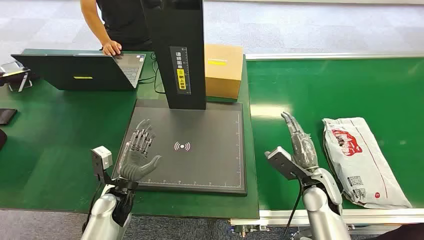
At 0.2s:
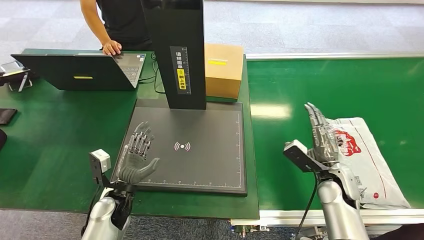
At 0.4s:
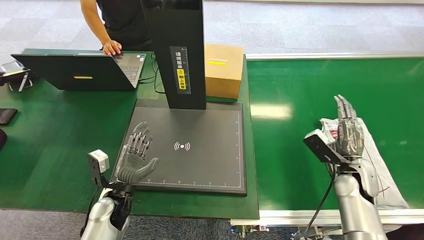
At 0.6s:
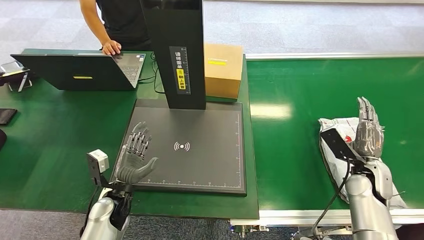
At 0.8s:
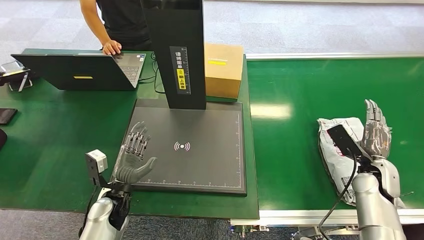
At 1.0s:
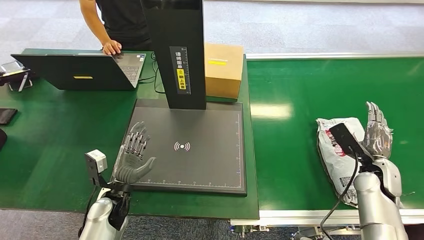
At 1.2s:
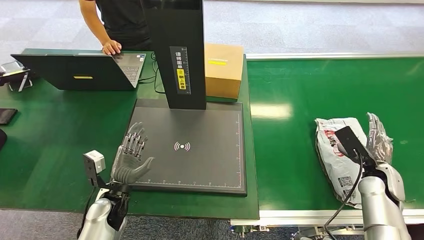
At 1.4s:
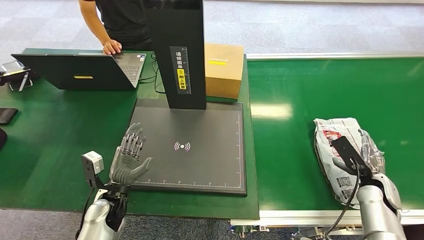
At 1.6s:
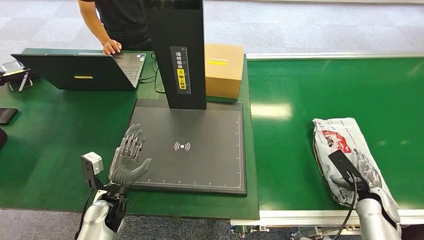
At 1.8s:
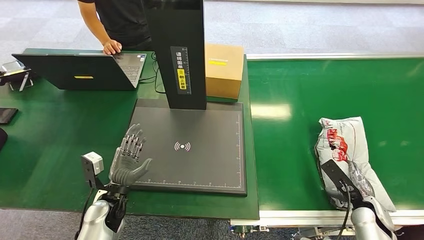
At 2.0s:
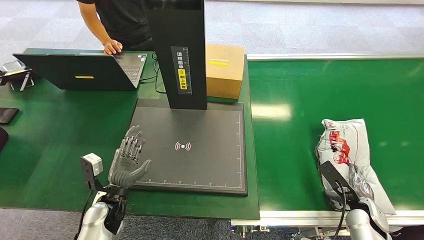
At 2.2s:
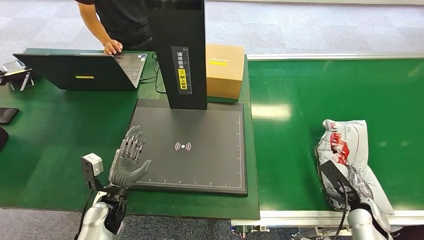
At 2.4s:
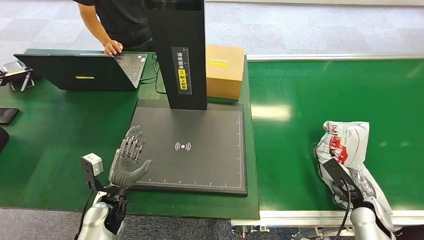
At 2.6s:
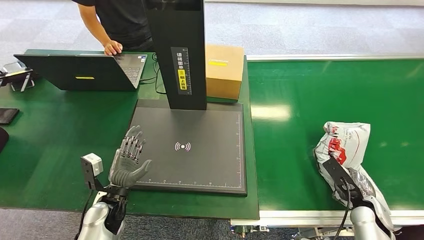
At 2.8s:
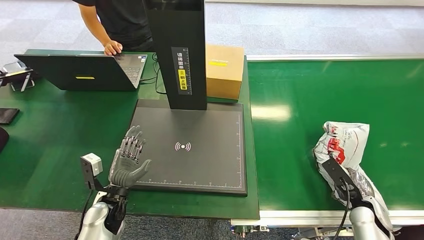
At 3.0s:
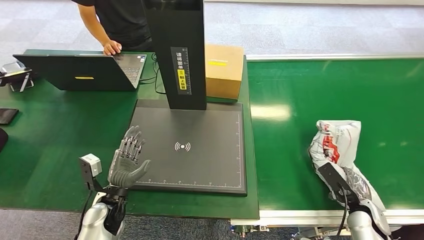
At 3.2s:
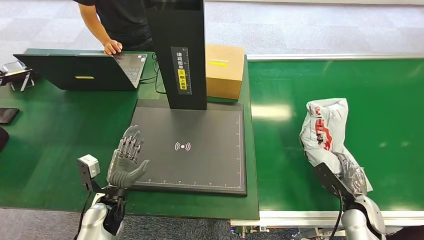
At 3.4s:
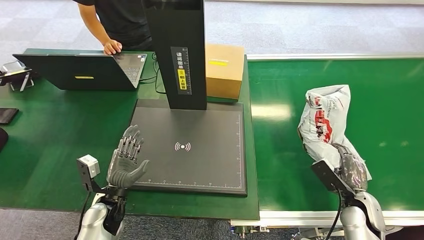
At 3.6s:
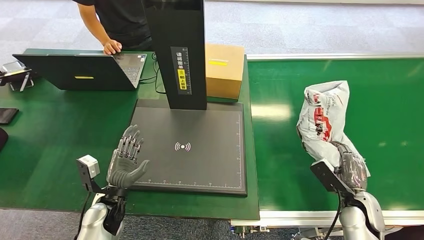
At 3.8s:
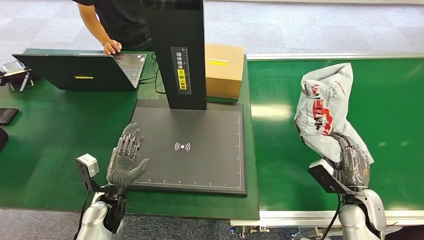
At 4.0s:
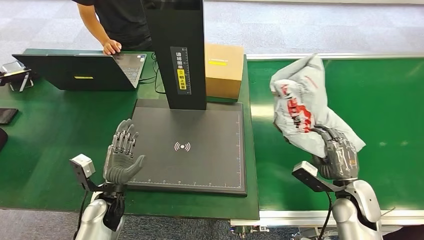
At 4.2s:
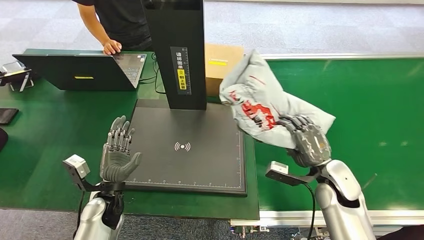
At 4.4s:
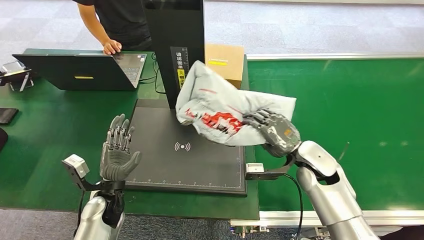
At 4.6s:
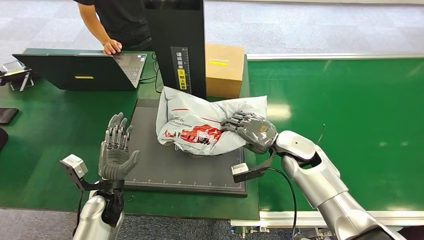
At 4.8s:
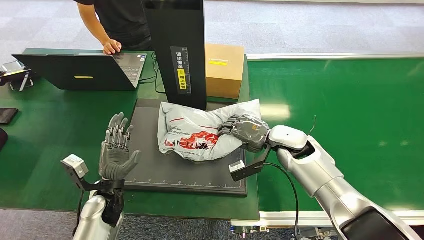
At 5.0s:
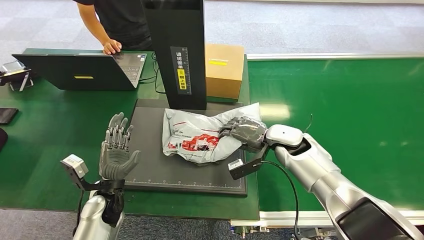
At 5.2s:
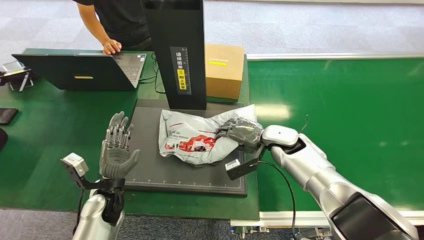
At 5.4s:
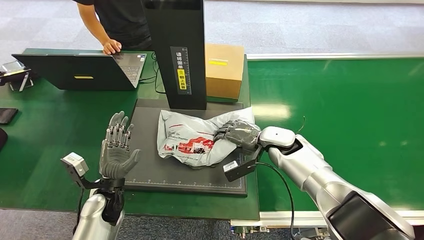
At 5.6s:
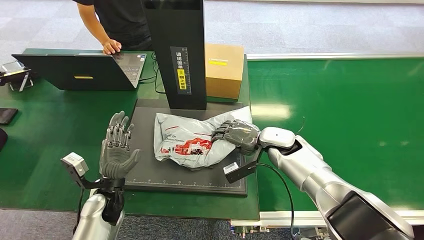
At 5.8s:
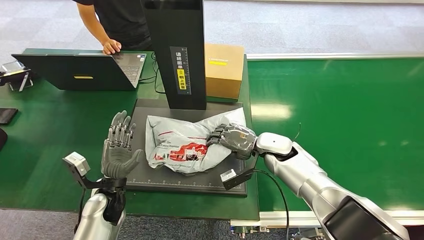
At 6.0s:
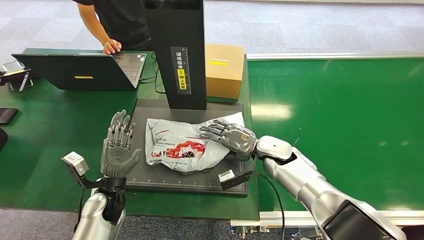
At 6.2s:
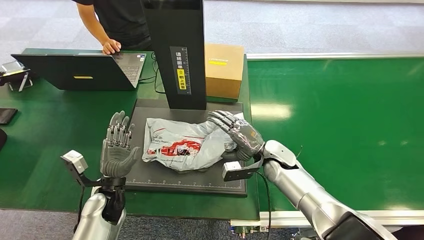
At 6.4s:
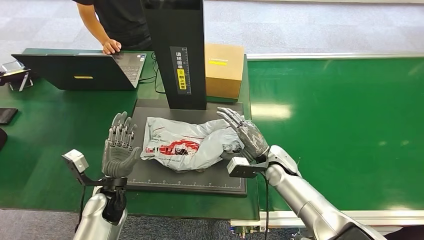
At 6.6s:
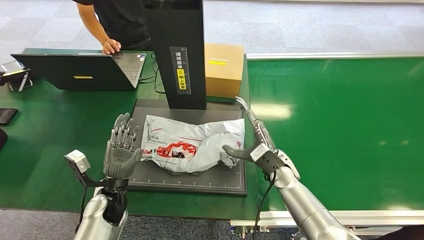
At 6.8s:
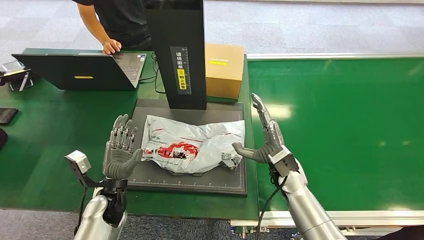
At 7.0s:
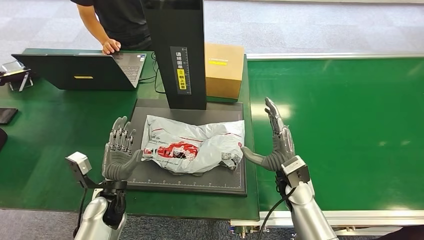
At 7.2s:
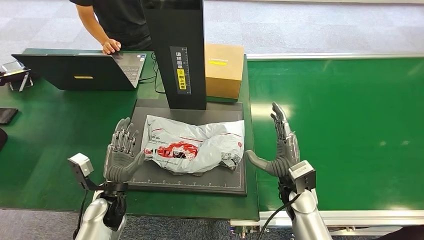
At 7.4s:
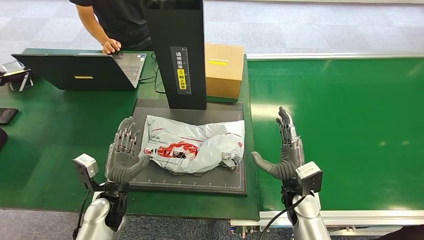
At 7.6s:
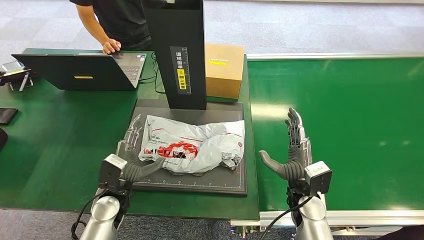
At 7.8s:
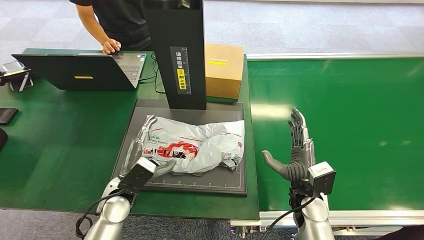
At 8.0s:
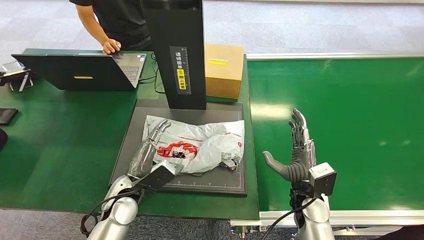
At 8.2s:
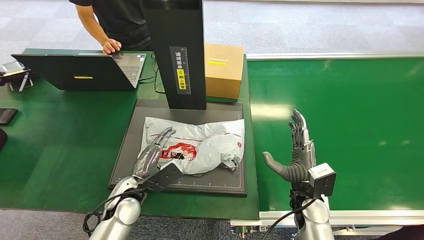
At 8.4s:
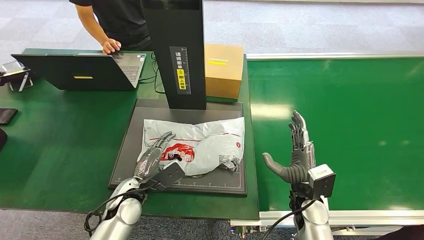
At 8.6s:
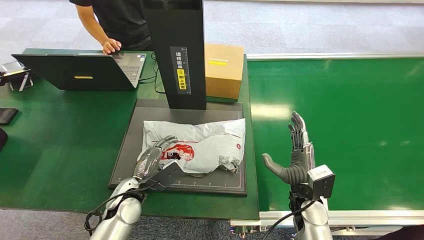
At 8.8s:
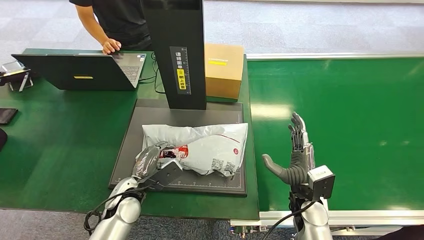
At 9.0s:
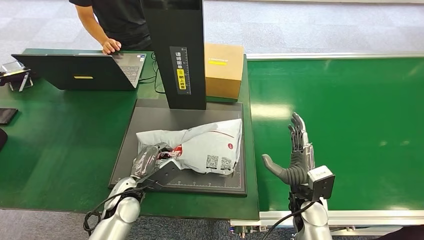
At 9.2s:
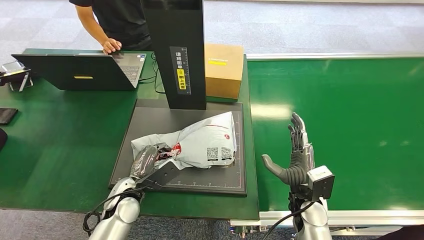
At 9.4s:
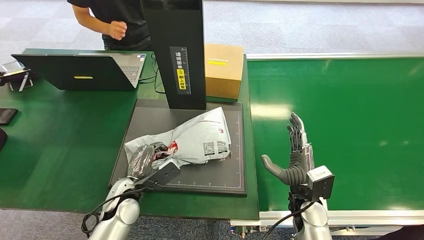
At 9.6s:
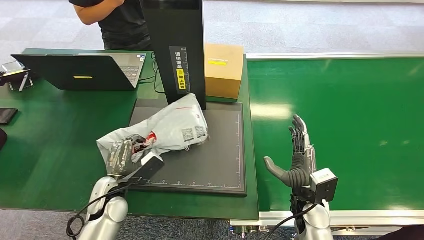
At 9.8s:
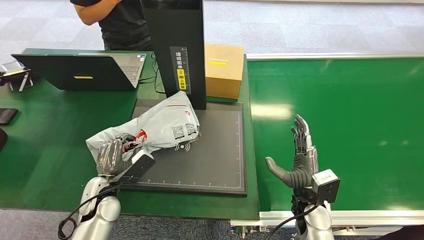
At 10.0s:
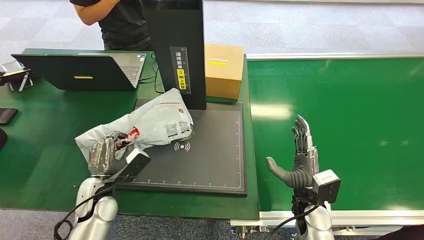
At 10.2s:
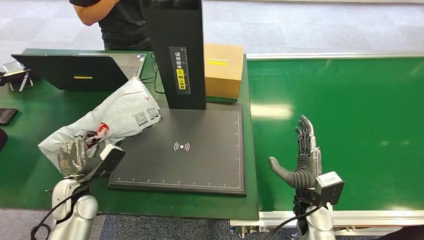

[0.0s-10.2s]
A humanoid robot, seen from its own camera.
Step, 0.0s to 3.8s: Pick up the package from the conveyor belt.
Step, 4.0s to 7.0s: Place the package onto the inbound machine.
Step, 7.2s to 10.2s: Pick up the package from the inbound machine.
1.4s to 3.0s: The right hand goes approximately 10 cm downward and backward.
4.4s to 5.8s: The right hand travels to the left and forward by roughly 10 cm.
5.8s to 7.2s: The right hand is displaced backward by some 10 cm.

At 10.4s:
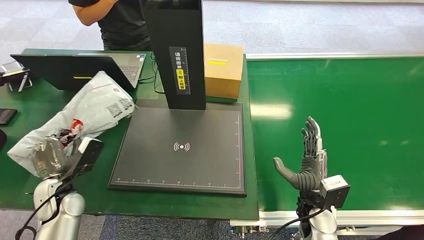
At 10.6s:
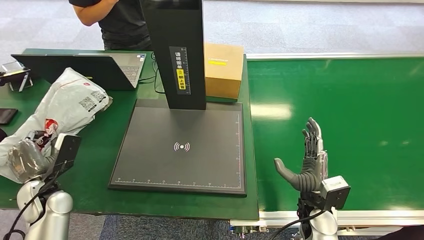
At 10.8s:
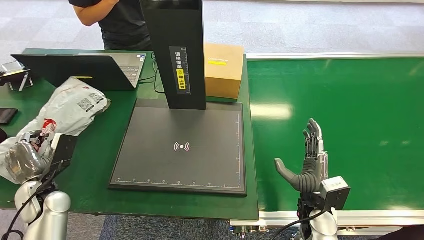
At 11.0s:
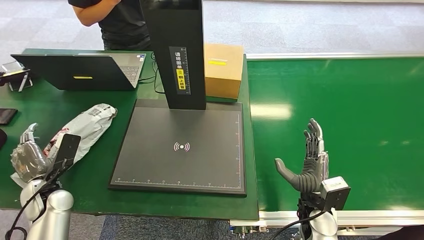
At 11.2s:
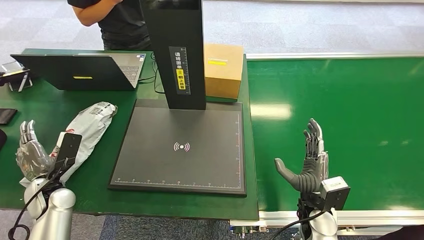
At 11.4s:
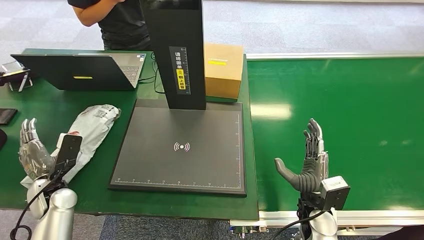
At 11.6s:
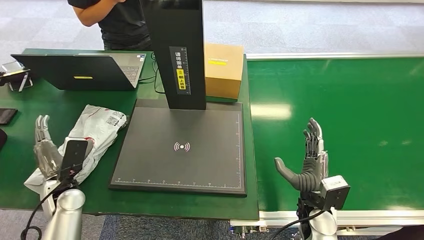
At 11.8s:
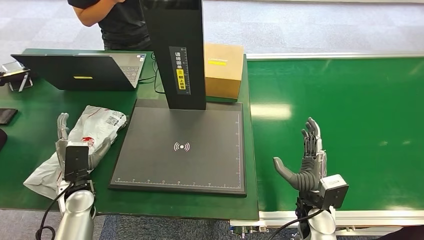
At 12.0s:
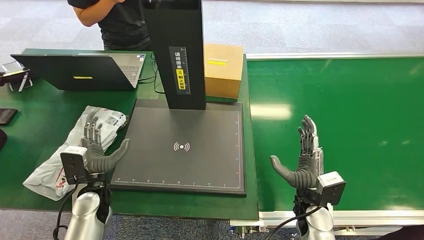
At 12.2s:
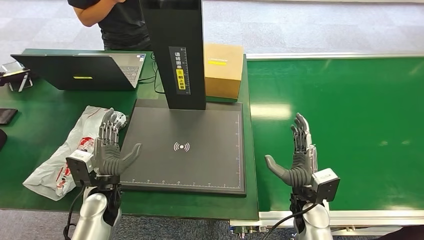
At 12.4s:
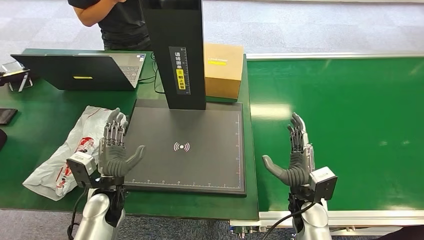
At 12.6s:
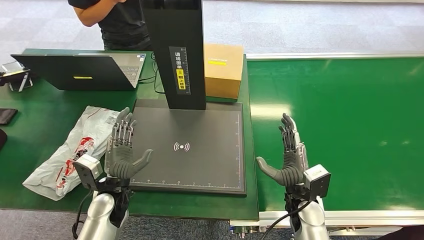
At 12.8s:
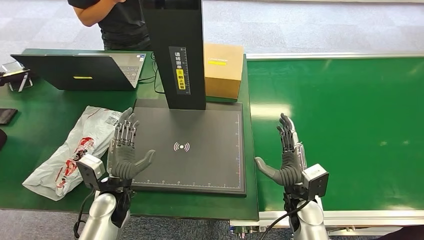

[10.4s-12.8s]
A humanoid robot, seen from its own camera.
Step, 10.4s to 12.8s: Place the package into the parcel locker.
10.4s to 11.6s: There are only small adjustments of the hands.
11.6s to 12.8s: The left hand heads to the right, covering approximately 15 cm.

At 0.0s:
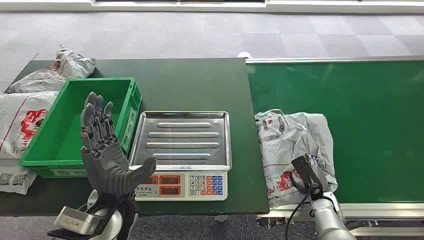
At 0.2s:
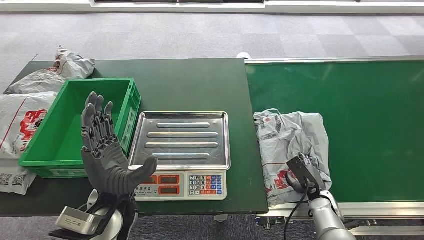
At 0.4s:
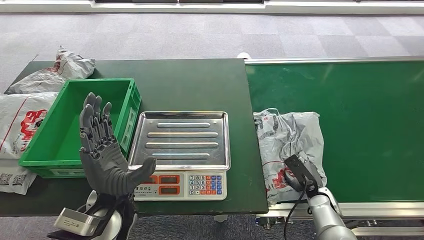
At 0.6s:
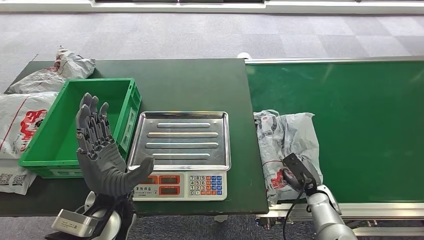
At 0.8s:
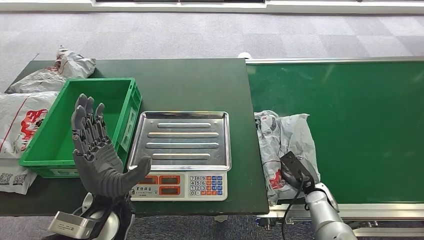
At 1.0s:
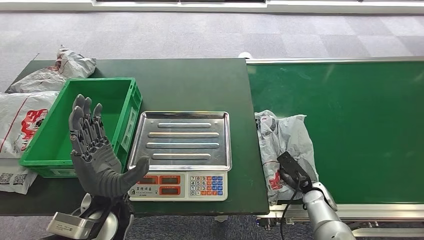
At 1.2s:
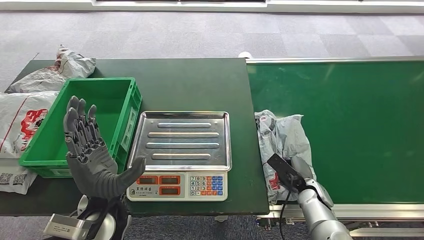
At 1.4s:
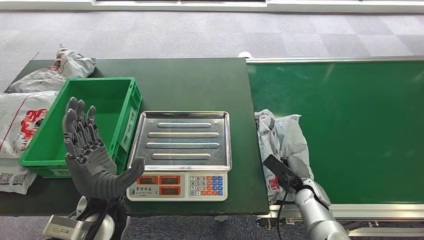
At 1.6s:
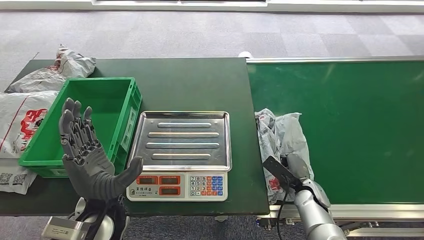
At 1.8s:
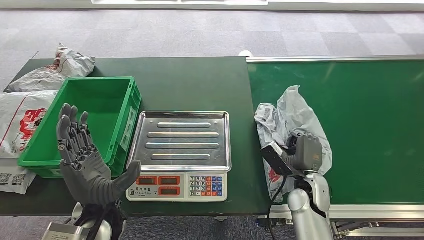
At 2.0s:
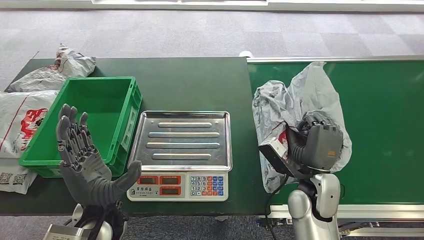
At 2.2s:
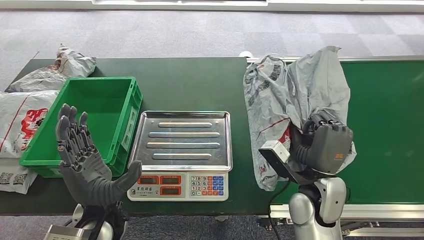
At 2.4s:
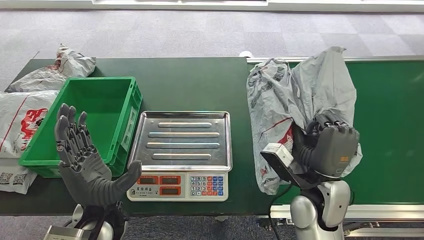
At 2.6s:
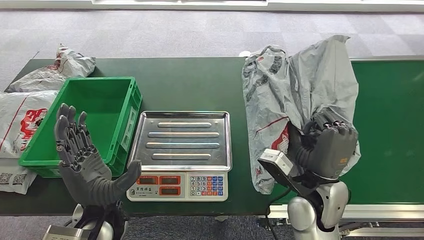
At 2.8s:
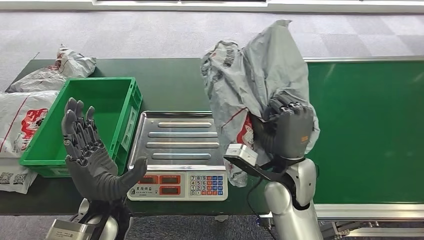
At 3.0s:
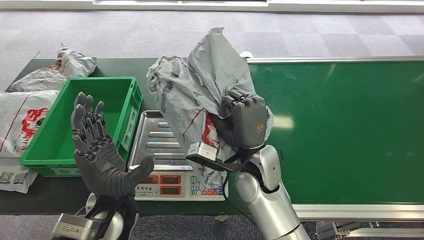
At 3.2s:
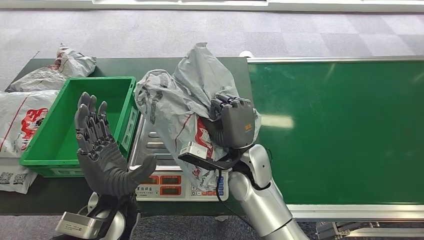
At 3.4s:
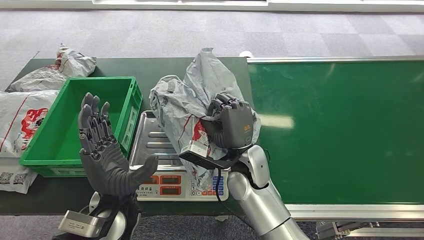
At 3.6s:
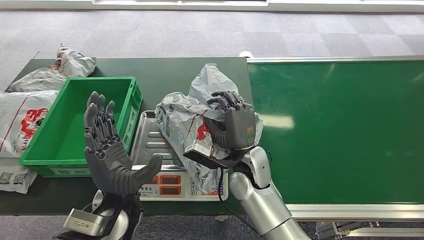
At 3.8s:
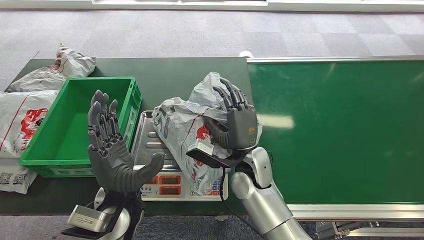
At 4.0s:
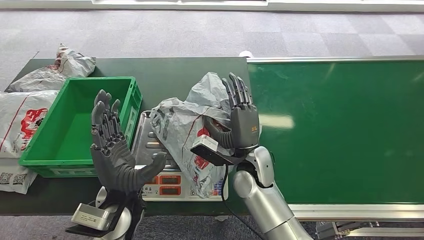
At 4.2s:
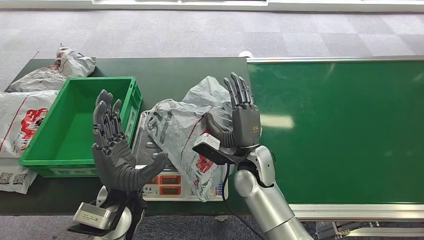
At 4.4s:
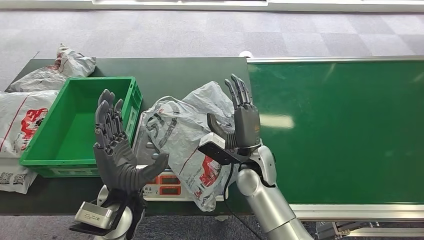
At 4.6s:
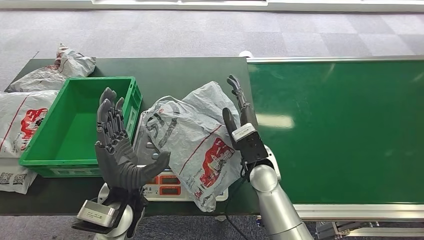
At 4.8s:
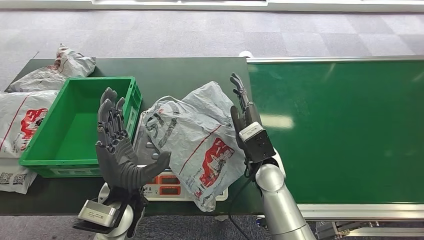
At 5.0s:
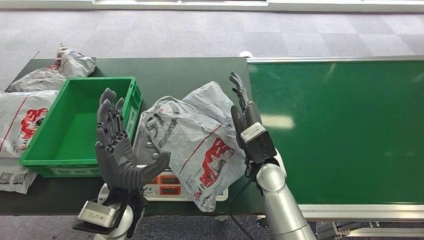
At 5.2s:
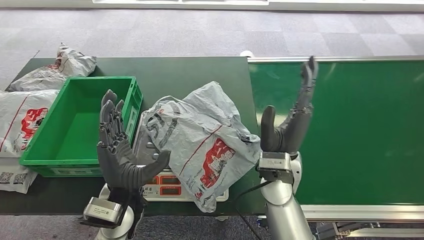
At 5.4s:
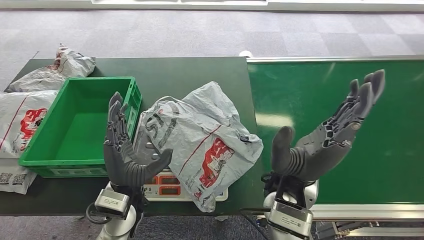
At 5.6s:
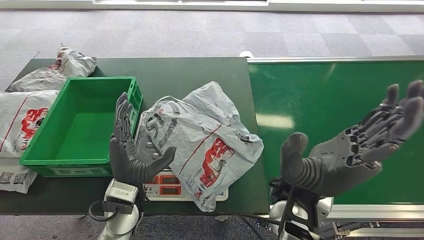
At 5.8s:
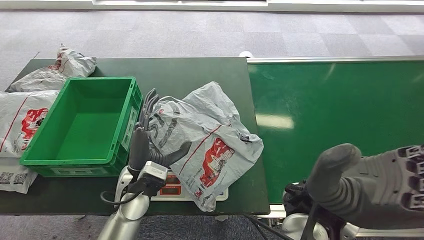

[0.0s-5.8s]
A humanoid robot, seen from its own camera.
Step, 0.0s to 2.4s: Pick up the package from the conveyor belt.
Step, 2.8s to 4.6s: Place the package onto the inbound machine.
1.4s to 2.8s: The right hand shifts some 25 cm upward and to the left.
4.4s to 5.8s: The right hand shifts roughly 20 cm upward and backward.
